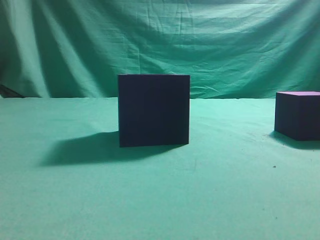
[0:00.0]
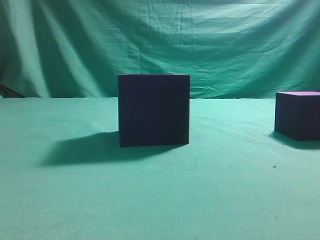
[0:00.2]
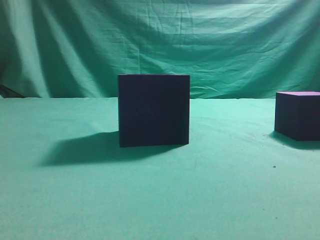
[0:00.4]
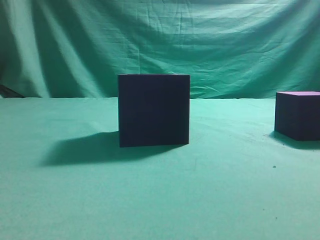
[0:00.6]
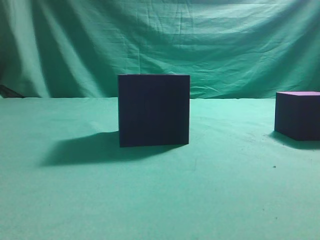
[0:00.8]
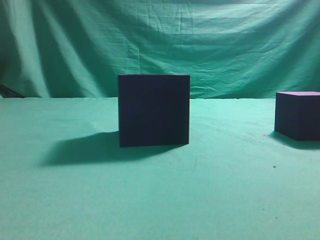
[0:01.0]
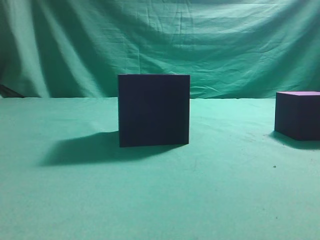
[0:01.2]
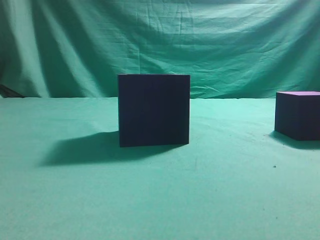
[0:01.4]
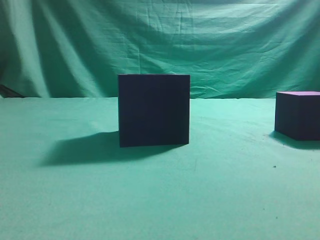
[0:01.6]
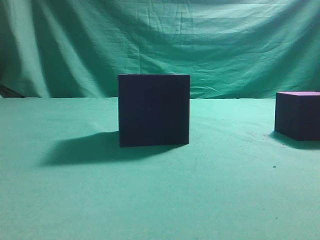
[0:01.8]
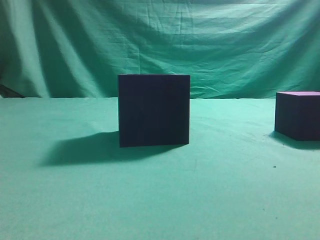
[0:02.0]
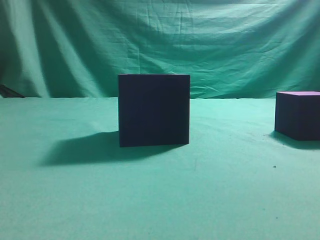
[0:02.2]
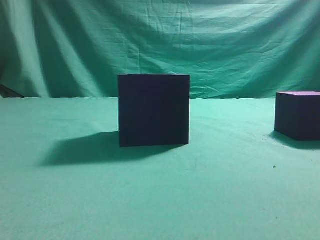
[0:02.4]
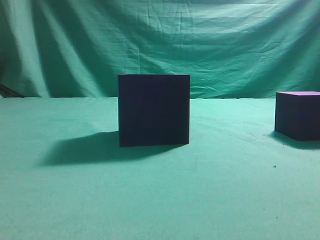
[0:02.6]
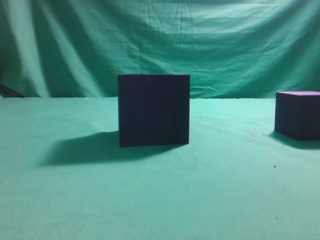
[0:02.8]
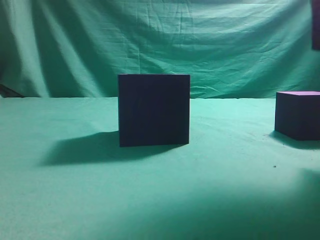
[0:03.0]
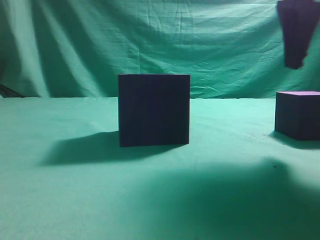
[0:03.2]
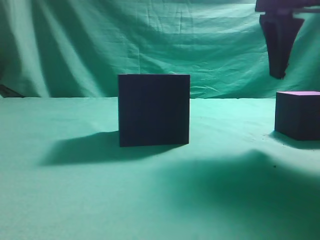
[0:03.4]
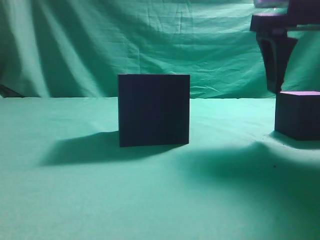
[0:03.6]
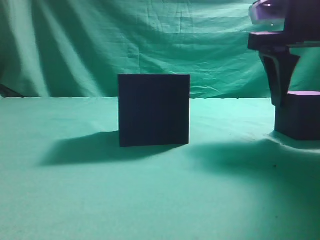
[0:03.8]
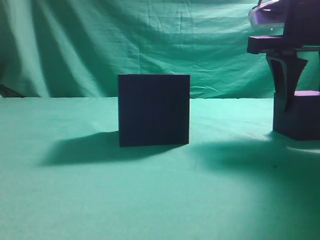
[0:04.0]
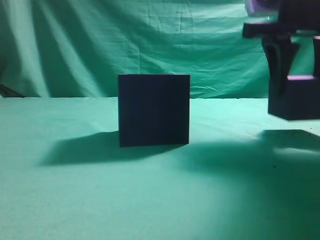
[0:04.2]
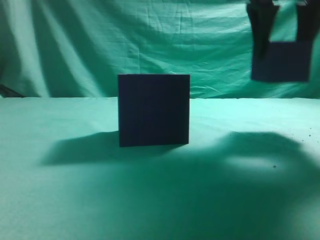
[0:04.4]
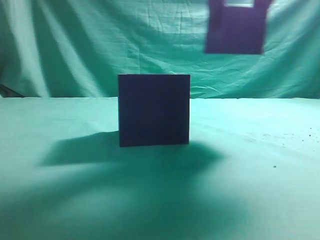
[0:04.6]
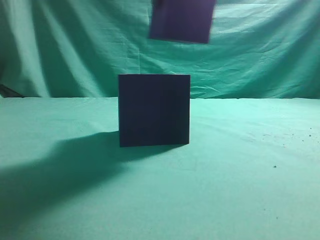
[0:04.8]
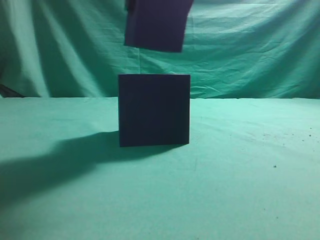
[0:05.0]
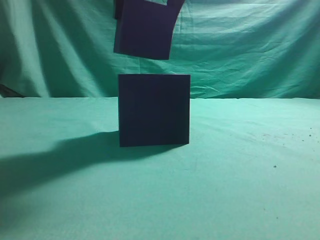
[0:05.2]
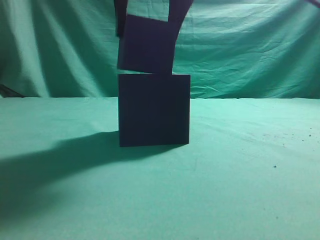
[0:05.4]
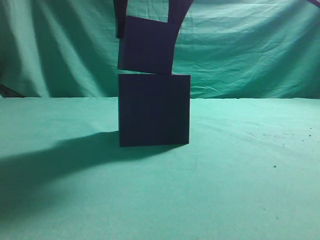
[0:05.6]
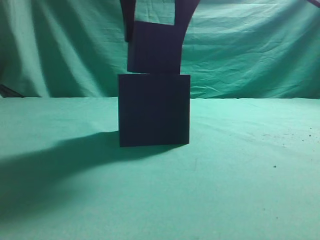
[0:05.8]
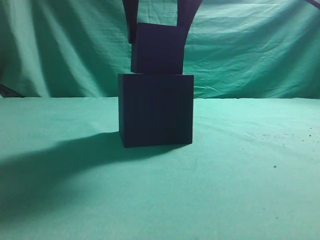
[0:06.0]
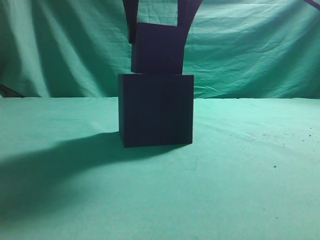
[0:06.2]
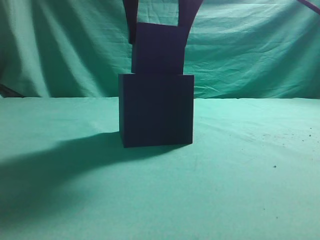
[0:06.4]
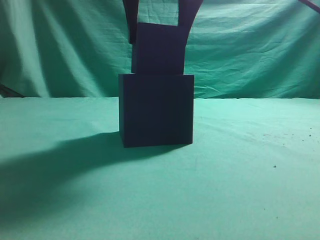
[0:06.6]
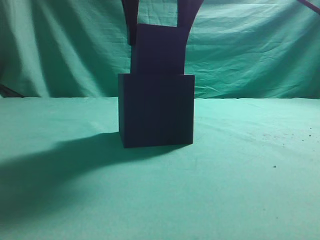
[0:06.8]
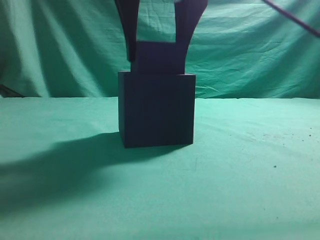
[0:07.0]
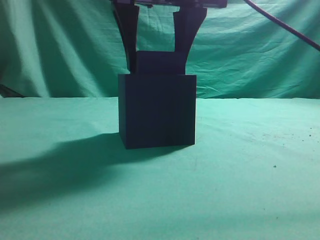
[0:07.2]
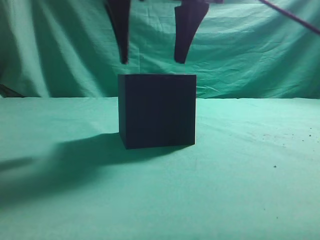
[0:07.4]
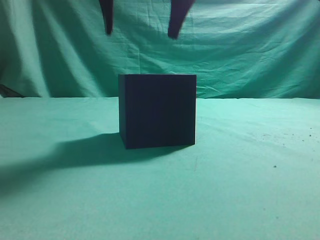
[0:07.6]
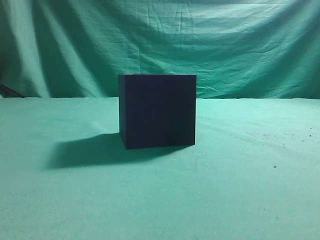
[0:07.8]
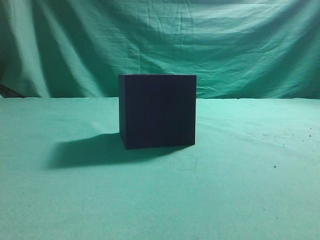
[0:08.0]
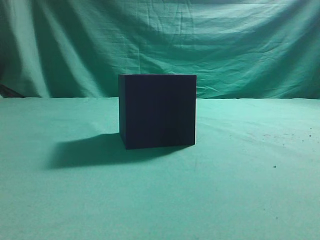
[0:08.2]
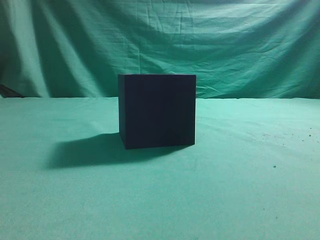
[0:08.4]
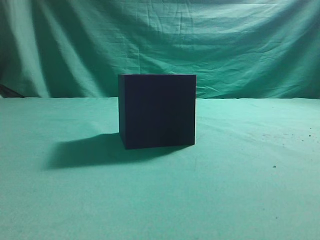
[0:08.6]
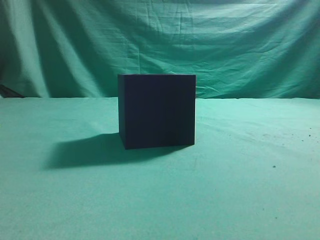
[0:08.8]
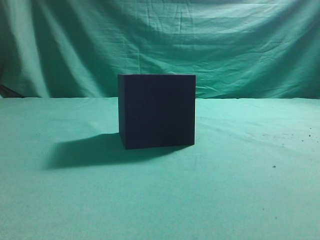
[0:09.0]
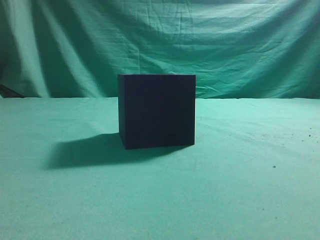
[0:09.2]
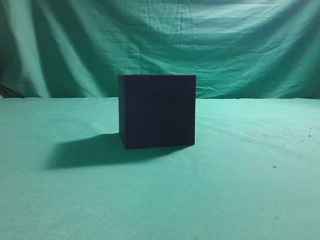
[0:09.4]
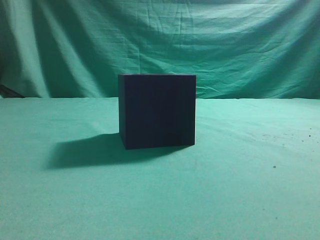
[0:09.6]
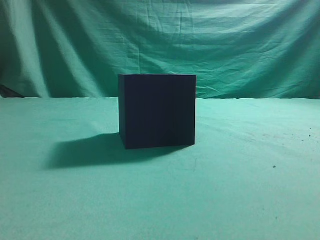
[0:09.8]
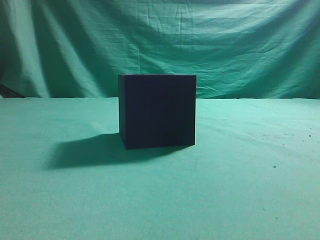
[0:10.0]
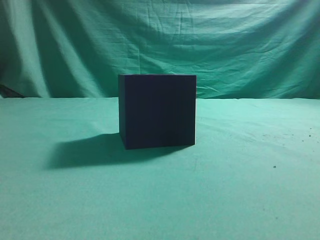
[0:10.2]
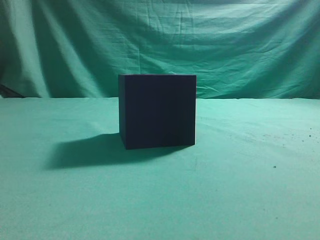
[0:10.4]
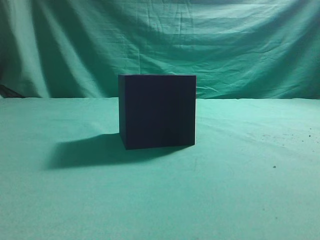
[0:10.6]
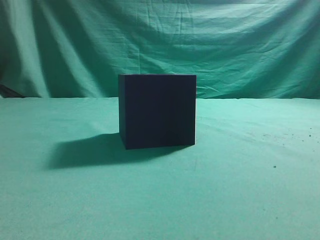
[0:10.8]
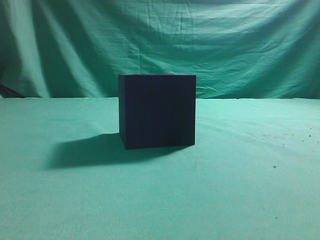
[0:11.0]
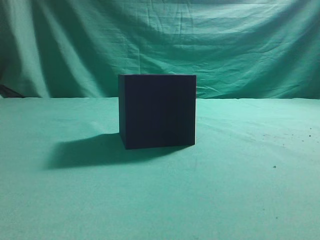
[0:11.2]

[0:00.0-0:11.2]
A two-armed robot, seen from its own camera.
Task of the whole recording: pick up the cube block and place it into the cube groove.
Step, 0:00.0 to 0:04.2: Grasp the cube.
Step, 0:04.4 to 0:07.4: Place cube into the cube-shaped recess.
0:01.6 to 0:03.2: The right gripper heads forward and to the left, covering about 25 cm, and opens up.
0:03.2 to 0:04.8: The right gripper moves to the left and upward, some 15 cm.
0:04.8 to 0:06.4: The right gripper moves approximately 5 cm.
0:06.4 to 0:08.0: The right gripper is displaced upward by about 15 cm, and closes up.
